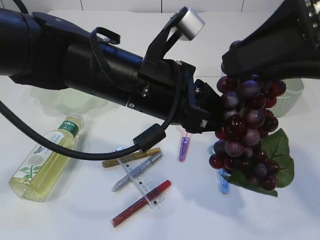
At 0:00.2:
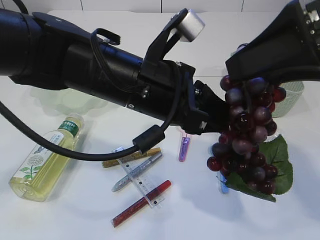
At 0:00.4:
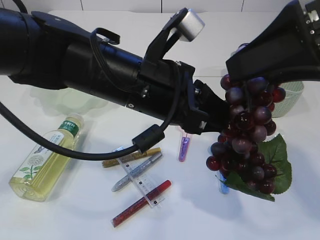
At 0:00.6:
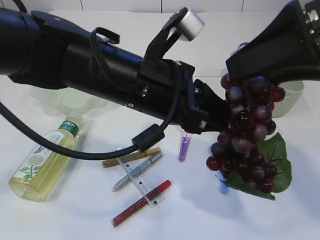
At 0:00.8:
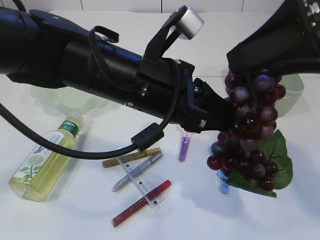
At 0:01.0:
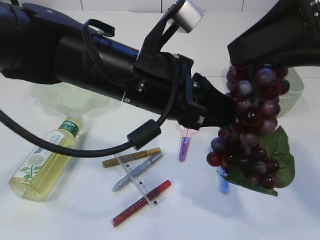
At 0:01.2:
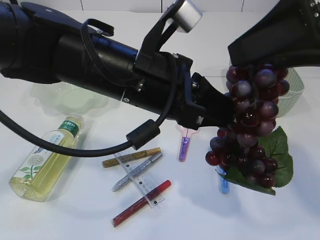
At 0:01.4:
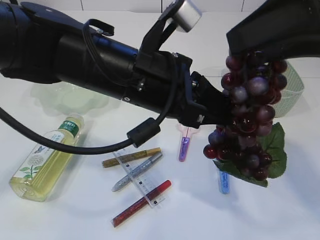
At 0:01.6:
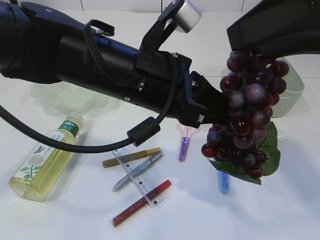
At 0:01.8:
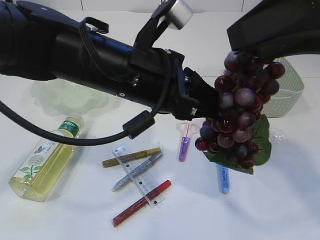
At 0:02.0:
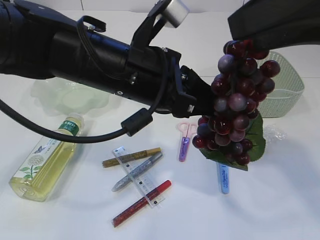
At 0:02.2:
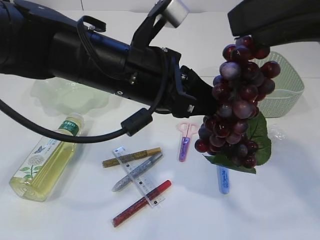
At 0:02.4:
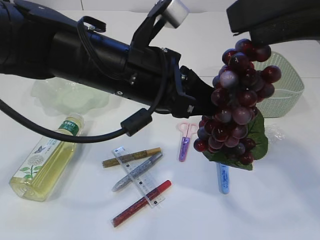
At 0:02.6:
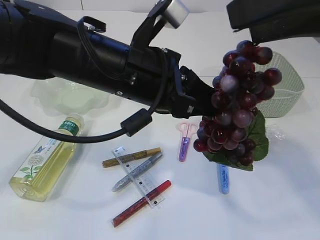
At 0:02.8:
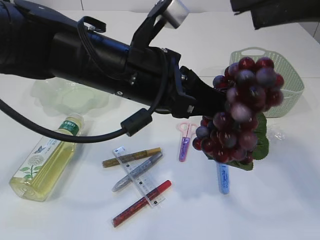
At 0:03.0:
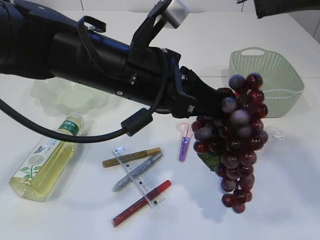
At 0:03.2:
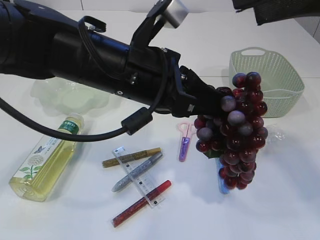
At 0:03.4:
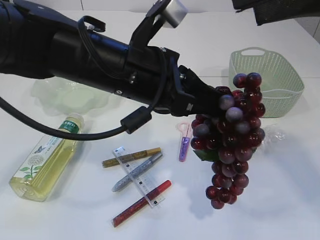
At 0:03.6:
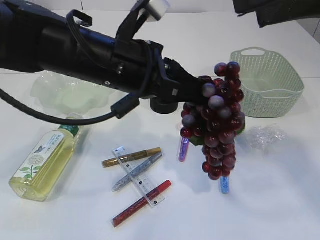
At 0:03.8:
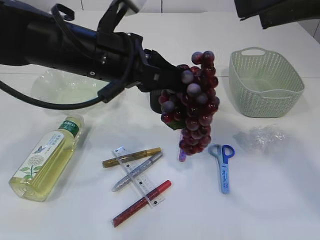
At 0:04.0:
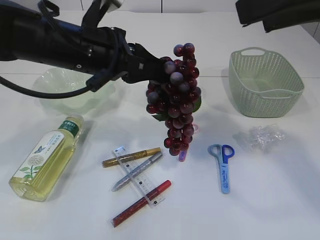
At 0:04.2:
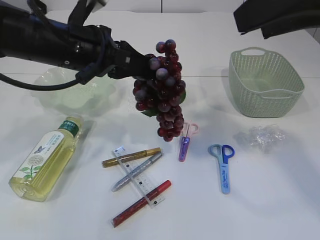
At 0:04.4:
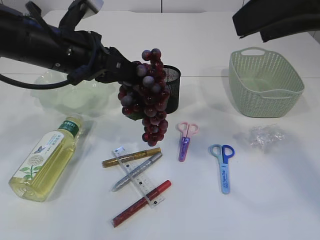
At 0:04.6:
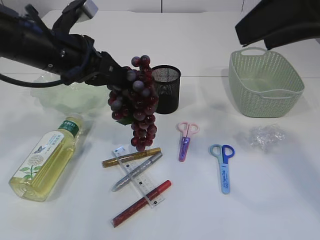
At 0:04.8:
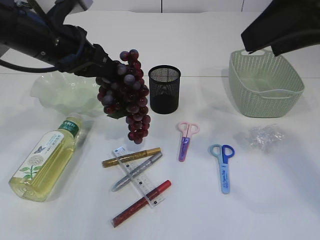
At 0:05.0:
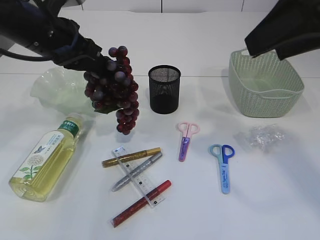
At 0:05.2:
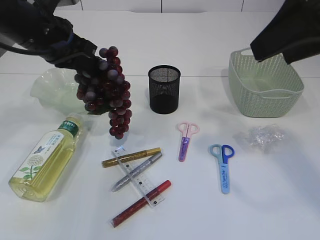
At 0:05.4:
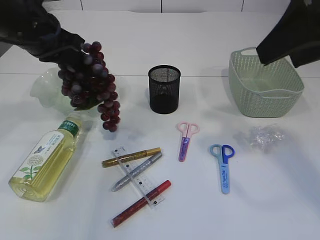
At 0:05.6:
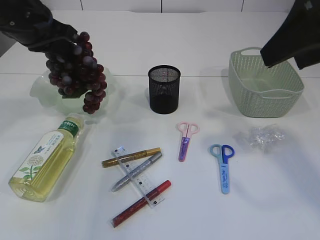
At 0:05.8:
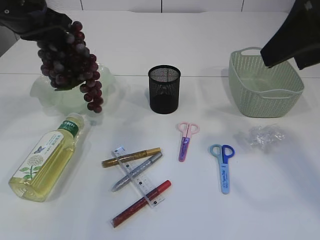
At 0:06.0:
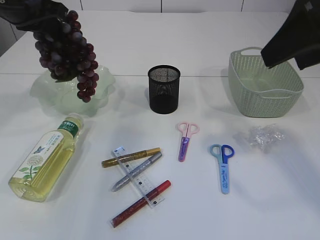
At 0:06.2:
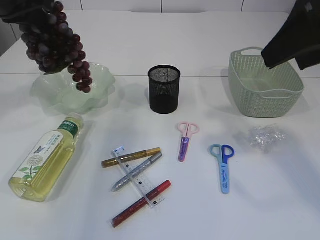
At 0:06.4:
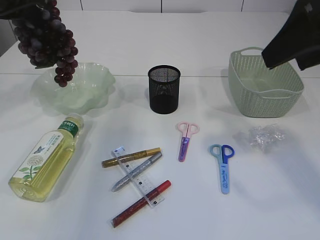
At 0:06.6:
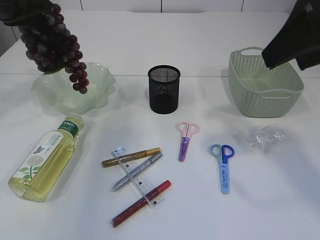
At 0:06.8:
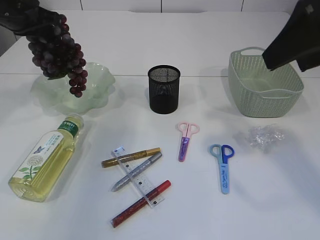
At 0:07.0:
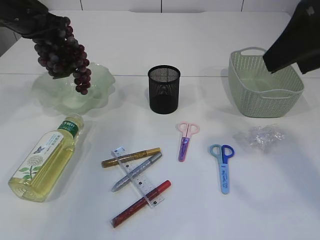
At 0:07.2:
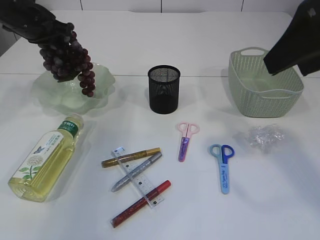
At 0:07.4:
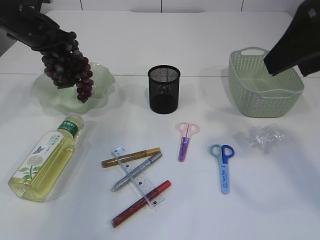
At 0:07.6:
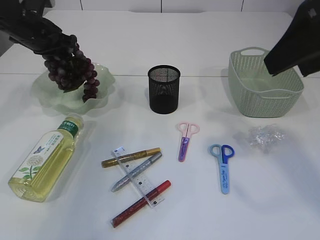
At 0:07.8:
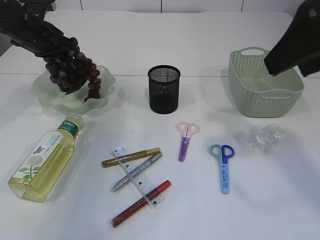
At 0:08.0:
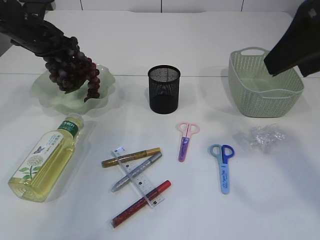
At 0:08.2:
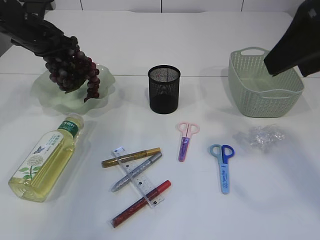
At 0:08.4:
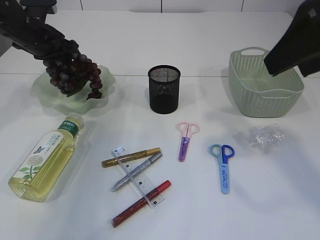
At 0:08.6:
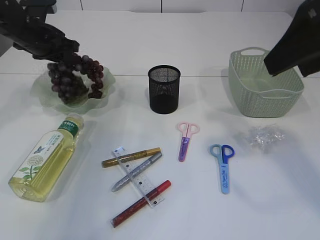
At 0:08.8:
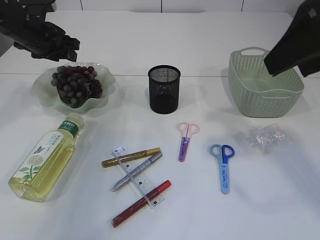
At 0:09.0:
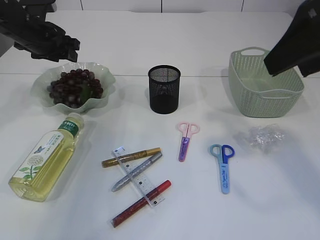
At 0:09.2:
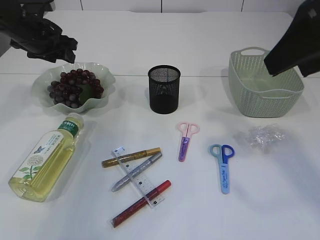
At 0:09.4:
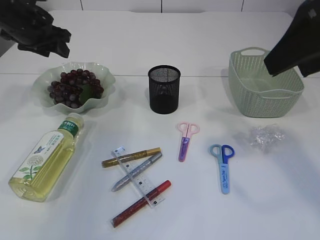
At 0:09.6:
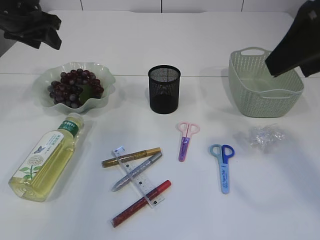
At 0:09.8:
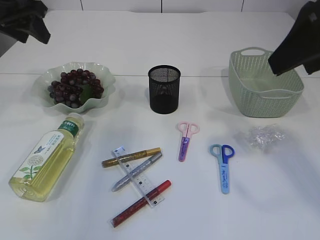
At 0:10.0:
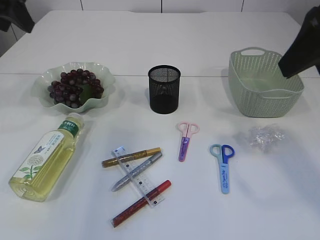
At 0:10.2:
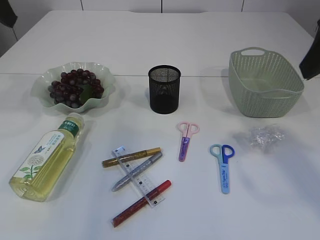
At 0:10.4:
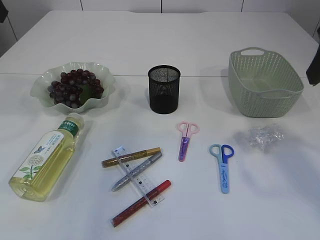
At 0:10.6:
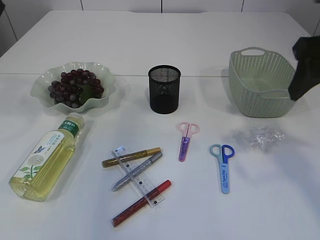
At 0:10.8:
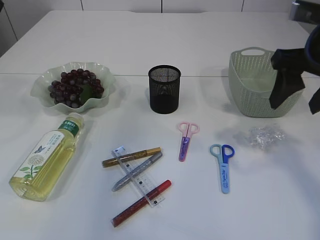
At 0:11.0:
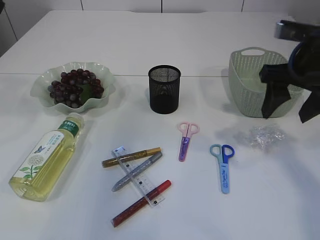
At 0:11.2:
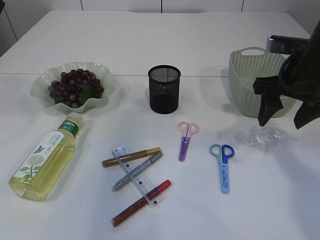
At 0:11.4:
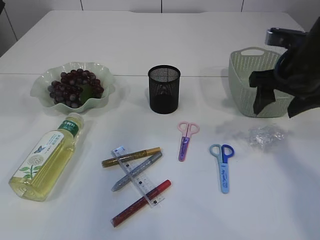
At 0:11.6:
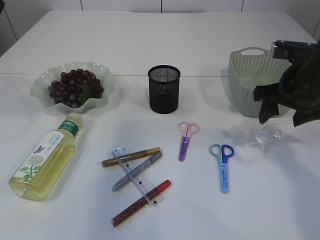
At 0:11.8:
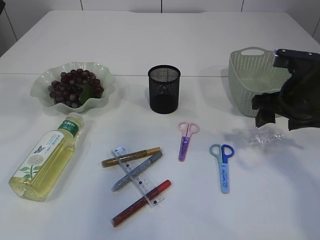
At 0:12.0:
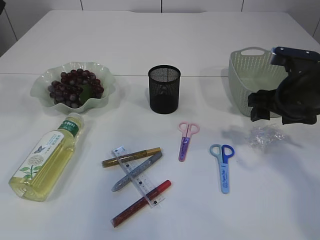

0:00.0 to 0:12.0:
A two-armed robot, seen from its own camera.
Step, 0:00.0 to 0:09.2: Place the grapes in the plate.
0:00.0 to 0:01.6: The grippers make only small movements.
0:03.0 to 0:04.4: The left gripper goes roughly 15 cm to the left and forward.
0:04.4 to 0:06.0: The left gripper shifts about 10 cm to the left, upward and forward.
0:06.0 to 0:07.6: The left gripper moves downward and forward, roughly 15 cm.
0:07.6 to 0:09.0: The left gripper opens its fingers.
0:09.0 to 0:10.4: The left gripper goes roughly 25 cm upward and backward.
0:10.4 to 0:12.0: The right gripper heads downward and forward, covering about 20 cm.

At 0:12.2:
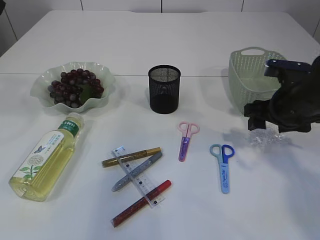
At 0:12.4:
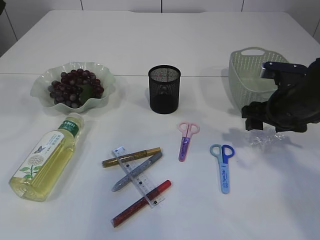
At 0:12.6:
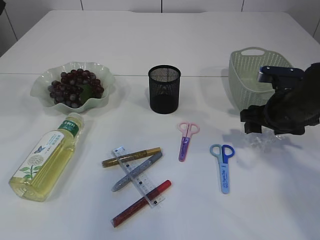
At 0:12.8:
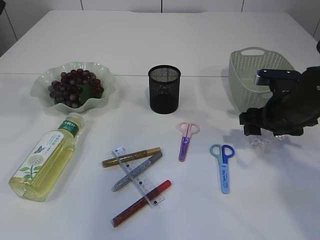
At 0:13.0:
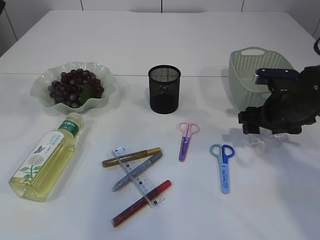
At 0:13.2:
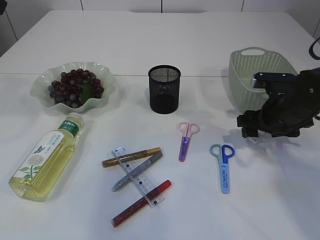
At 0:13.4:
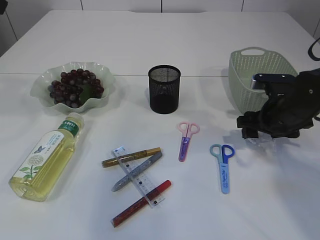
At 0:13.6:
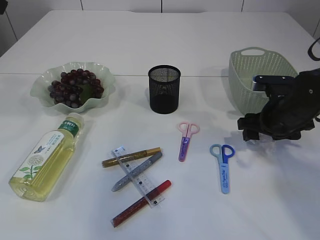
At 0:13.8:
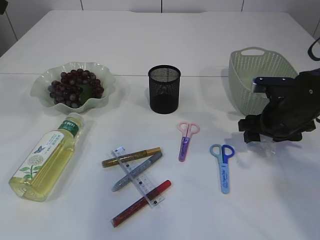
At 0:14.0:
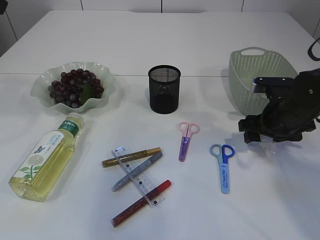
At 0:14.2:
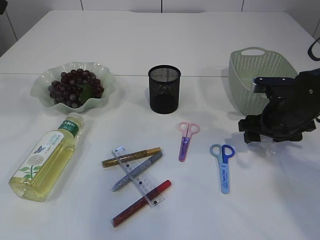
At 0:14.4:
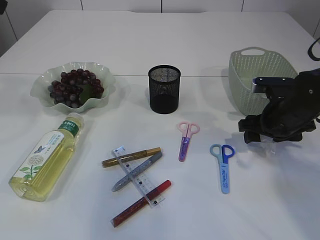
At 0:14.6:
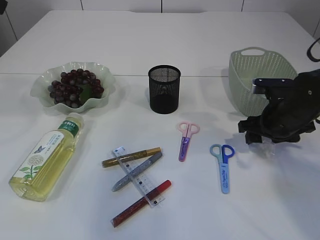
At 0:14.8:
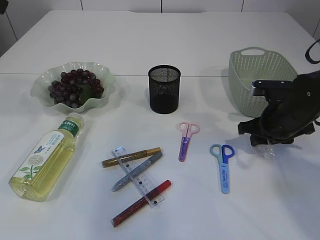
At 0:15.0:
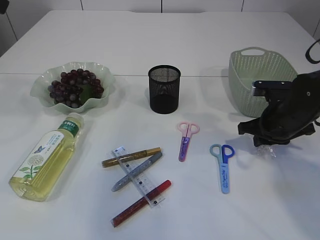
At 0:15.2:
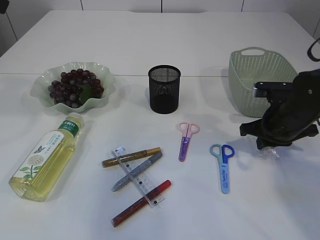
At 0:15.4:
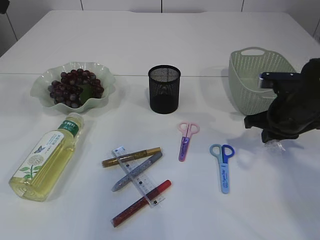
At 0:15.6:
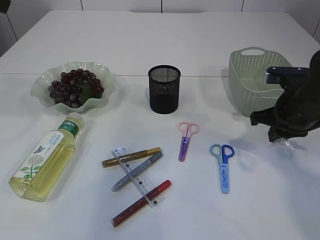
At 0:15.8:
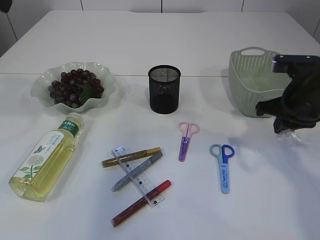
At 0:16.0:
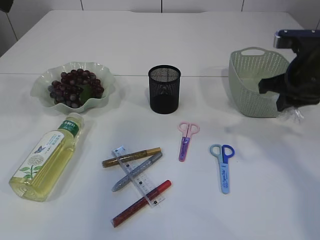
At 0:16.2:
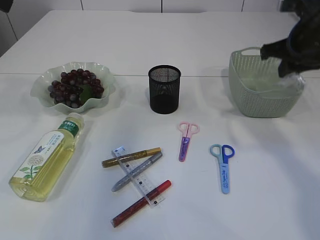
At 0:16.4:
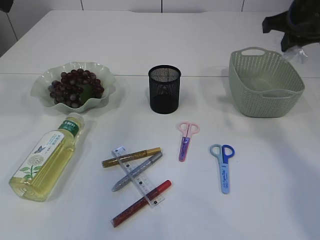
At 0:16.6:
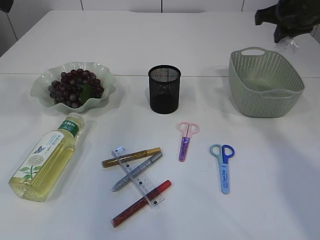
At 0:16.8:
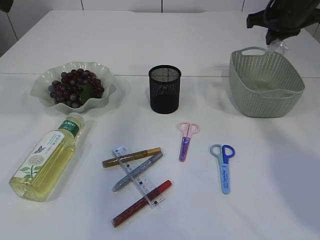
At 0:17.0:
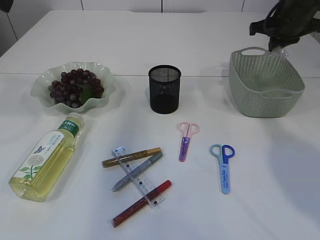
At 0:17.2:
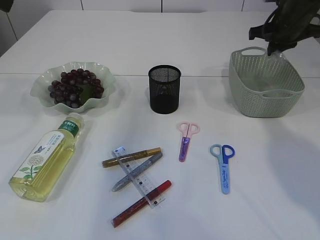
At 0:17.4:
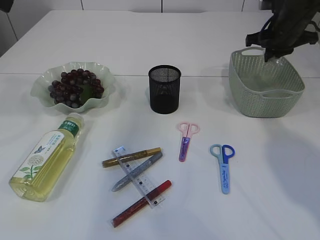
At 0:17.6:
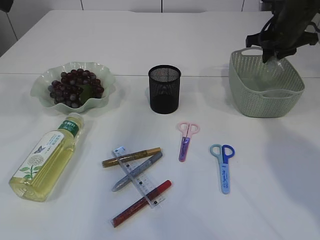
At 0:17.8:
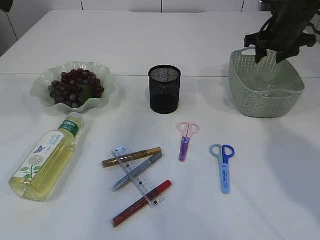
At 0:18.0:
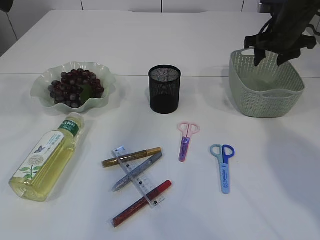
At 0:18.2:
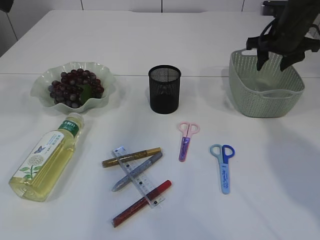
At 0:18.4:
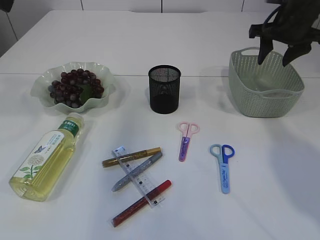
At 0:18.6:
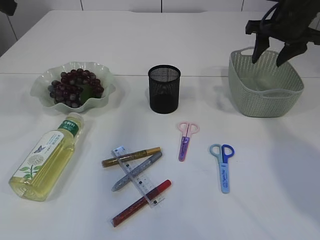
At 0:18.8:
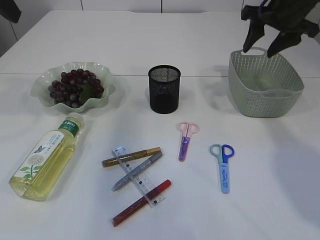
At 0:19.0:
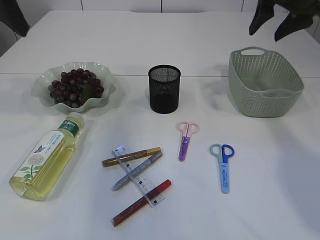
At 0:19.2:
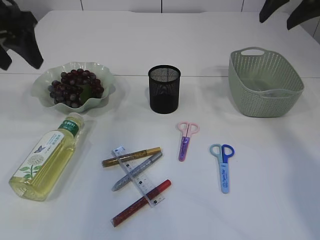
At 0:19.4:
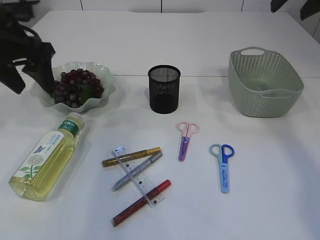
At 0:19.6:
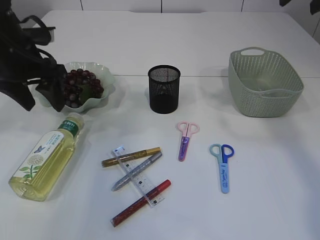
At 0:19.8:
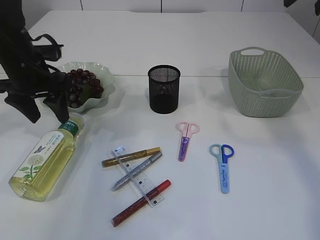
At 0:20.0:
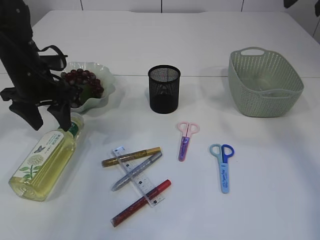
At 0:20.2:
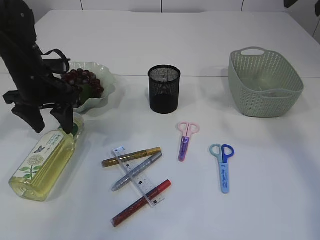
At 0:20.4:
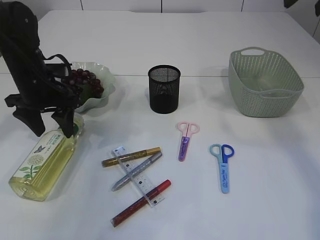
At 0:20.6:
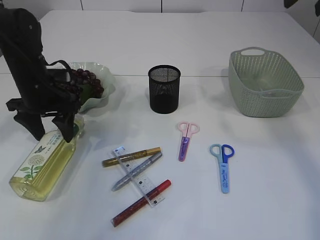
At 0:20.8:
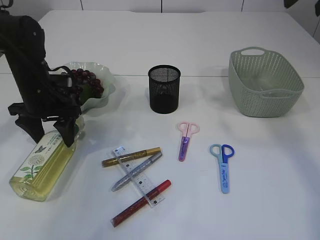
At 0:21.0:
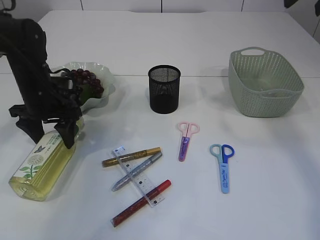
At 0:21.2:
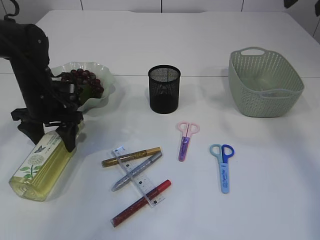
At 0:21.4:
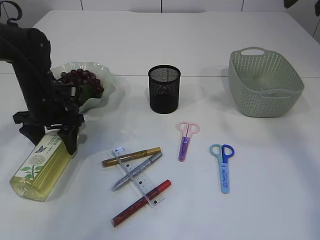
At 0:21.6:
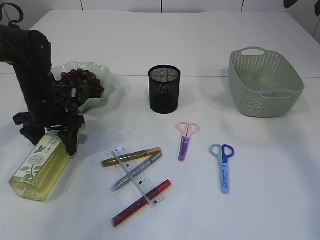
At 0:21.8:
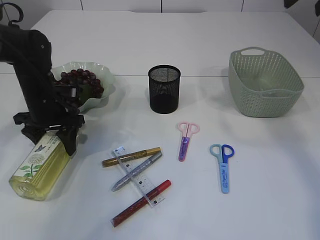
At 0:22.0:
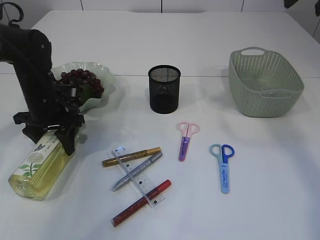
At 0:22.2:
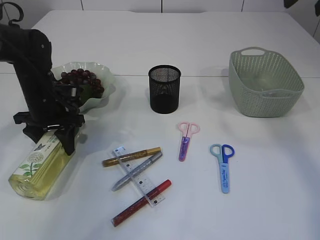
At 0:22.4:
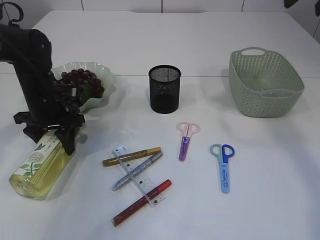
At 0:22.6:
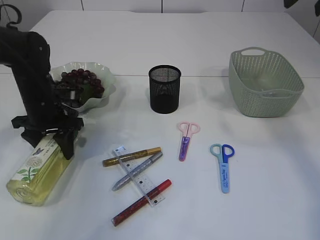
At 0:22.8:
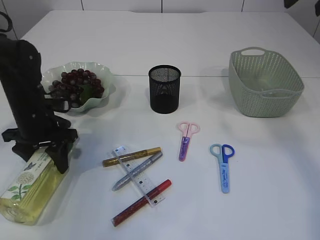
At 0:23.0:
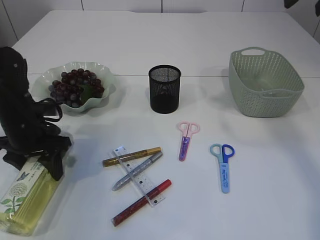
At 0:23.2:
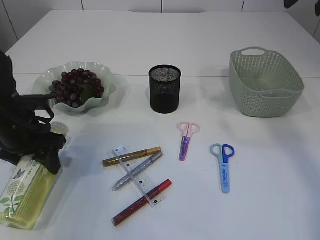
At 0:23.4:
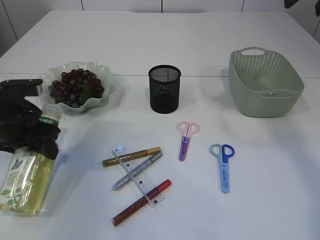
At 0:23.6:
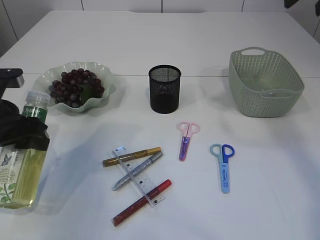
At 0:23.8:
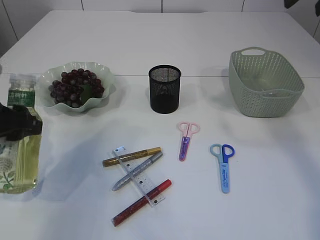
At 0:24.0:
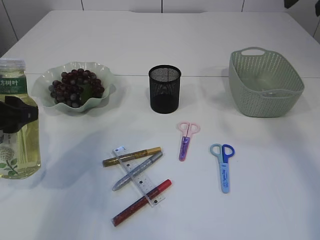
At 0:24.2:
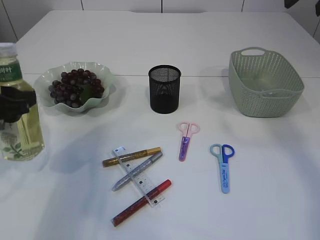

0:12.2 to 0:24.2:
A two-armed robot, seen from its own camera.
Step, 0:12.2 to 0:16.0: Pick up the plastic.
Step, 0:16.2 to 0:19.0: Place the plastic in the basket.
Step, 0:19.2 to 0:23.6: Pick up the bottle with the left arm.
0:12.2 to 0:13.8: The grippers make only small movements.
0:13.8 to 0:15.2: The right gripper closes.
0:15.2 to 0:16.6: The right gripper shifts some 20 cm upward.
0:16.6 to 0:18.2: The right gripper shifts about 10 cm downward and forward, and opens up.
0:18.2 to 0:19.8: The right gripper heads upward and backward, covering roughly 25 cm. The left gripper travels downward by approximately 20 cm.
0:19.8 to 0:21.2: The left gripper moves downward, about 10 cm.
0:21.2 to 0:22.6: The grippers move only a little.
0:22.6 to 0:24.2: The left gripper goes roughly 15 cm backward and upward.
